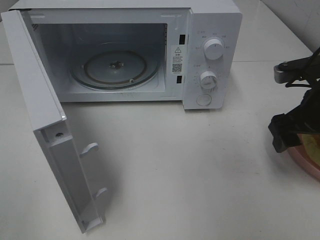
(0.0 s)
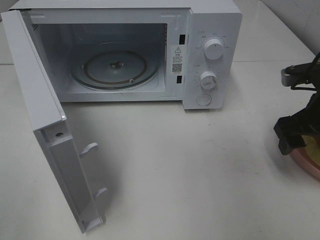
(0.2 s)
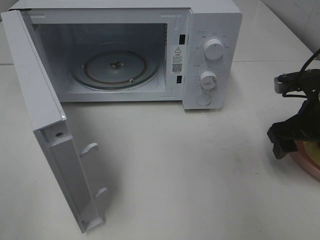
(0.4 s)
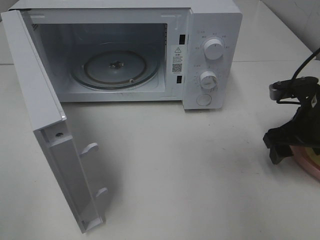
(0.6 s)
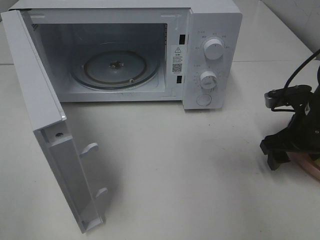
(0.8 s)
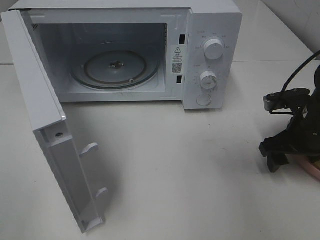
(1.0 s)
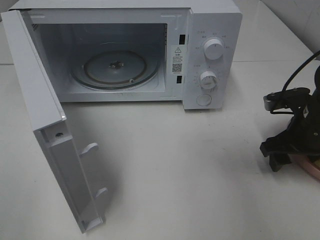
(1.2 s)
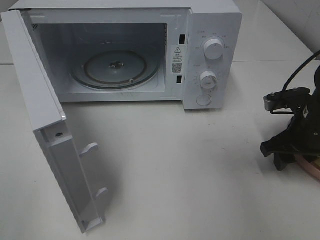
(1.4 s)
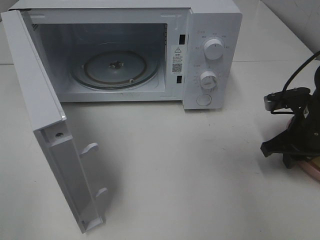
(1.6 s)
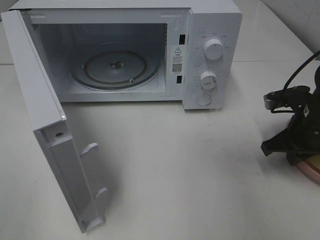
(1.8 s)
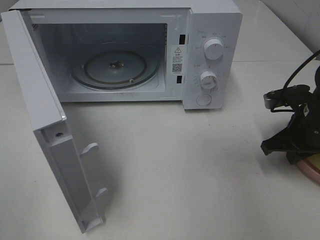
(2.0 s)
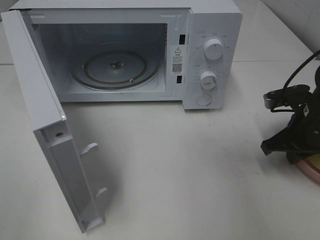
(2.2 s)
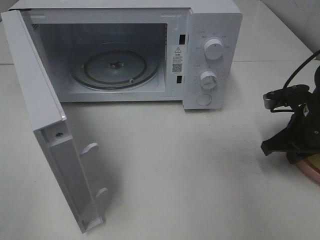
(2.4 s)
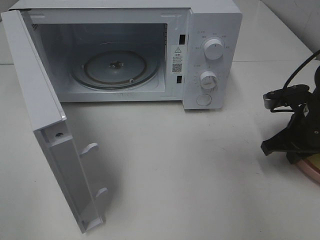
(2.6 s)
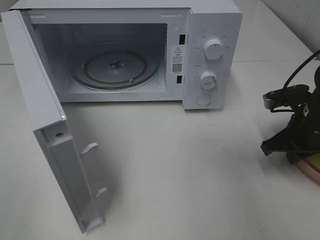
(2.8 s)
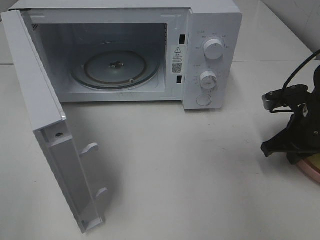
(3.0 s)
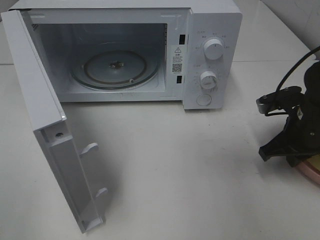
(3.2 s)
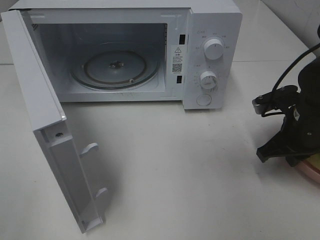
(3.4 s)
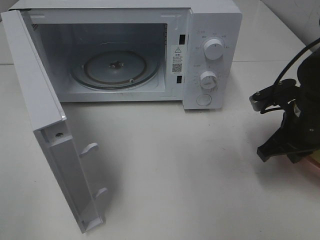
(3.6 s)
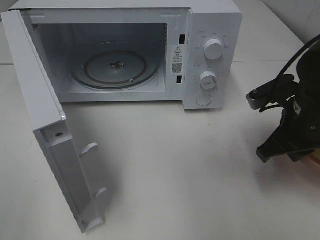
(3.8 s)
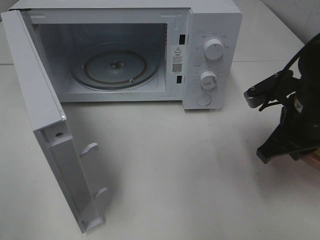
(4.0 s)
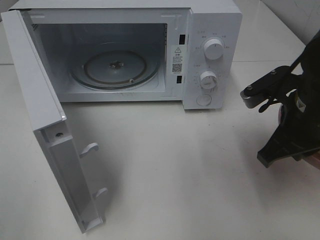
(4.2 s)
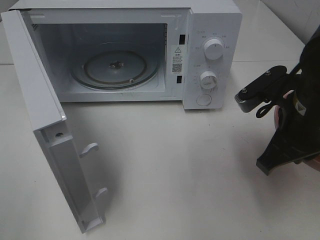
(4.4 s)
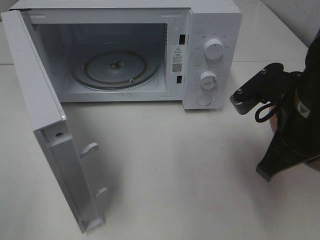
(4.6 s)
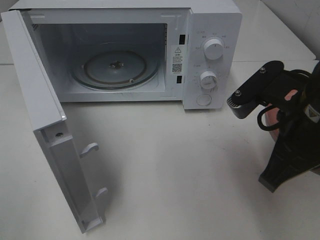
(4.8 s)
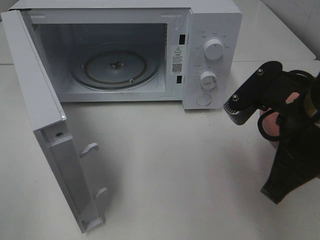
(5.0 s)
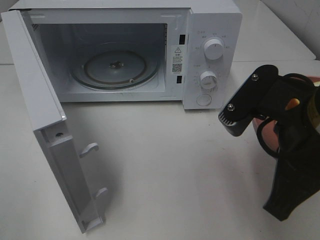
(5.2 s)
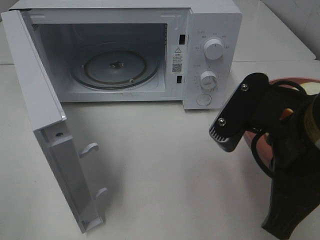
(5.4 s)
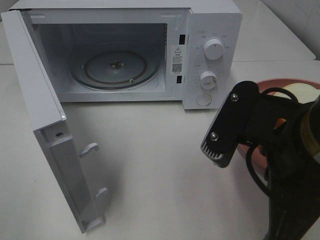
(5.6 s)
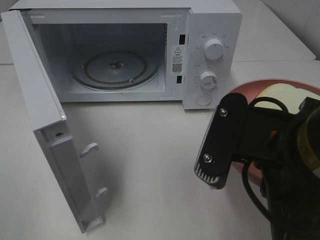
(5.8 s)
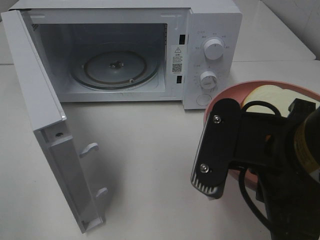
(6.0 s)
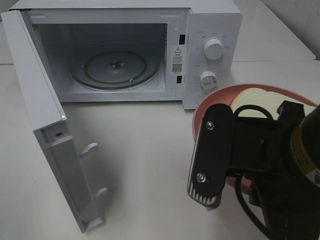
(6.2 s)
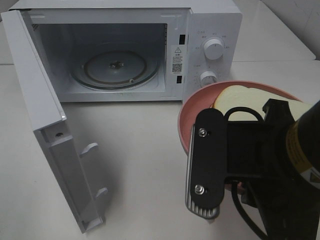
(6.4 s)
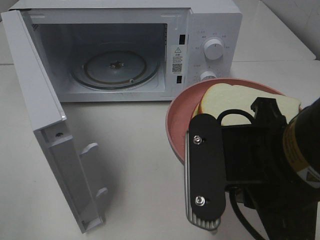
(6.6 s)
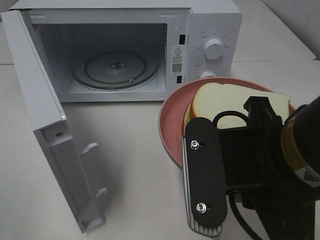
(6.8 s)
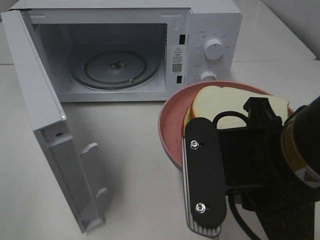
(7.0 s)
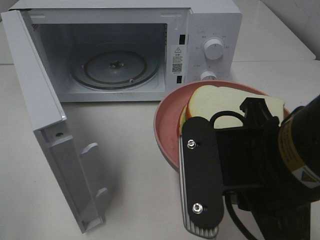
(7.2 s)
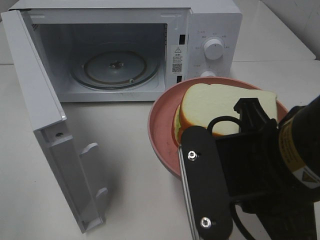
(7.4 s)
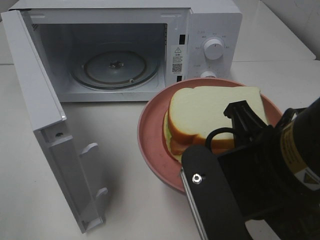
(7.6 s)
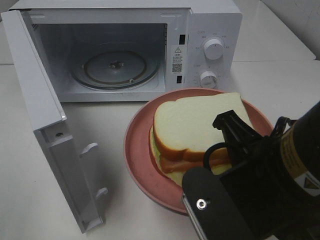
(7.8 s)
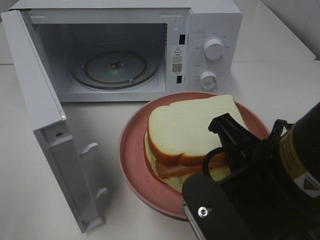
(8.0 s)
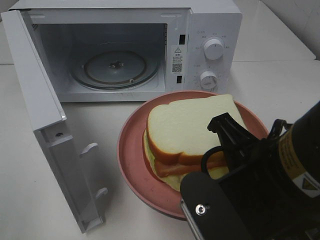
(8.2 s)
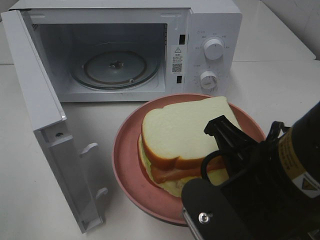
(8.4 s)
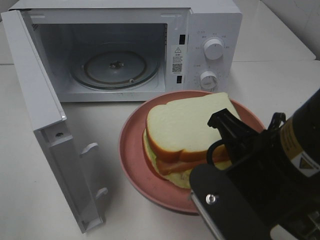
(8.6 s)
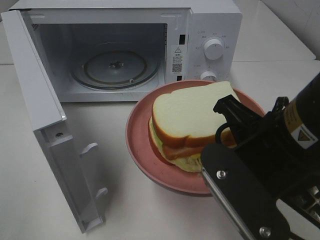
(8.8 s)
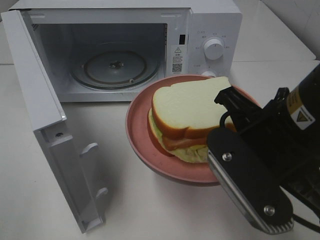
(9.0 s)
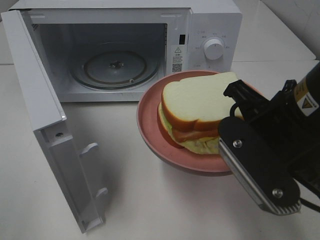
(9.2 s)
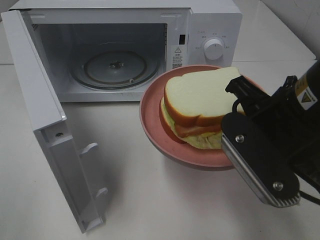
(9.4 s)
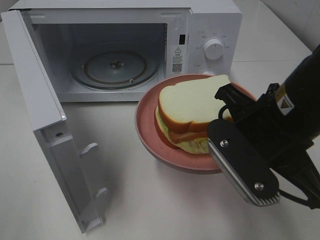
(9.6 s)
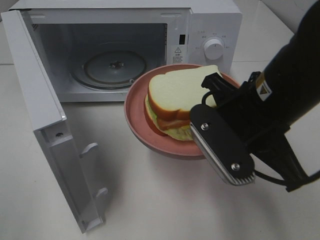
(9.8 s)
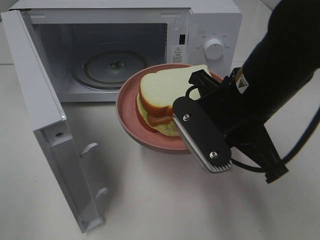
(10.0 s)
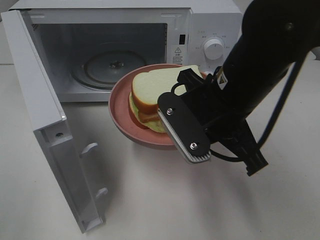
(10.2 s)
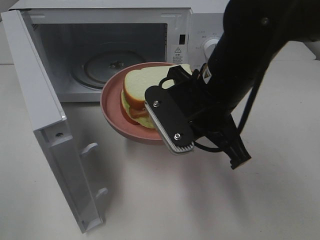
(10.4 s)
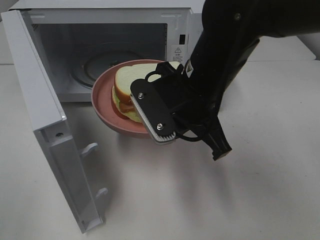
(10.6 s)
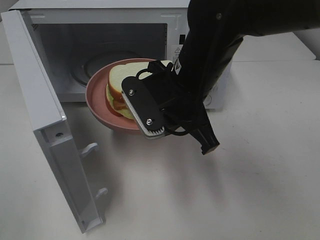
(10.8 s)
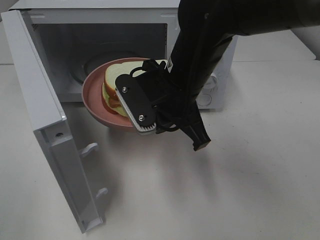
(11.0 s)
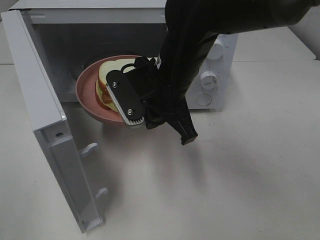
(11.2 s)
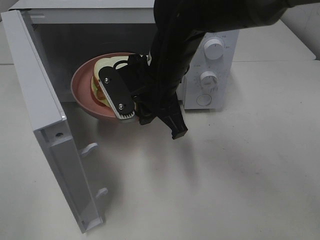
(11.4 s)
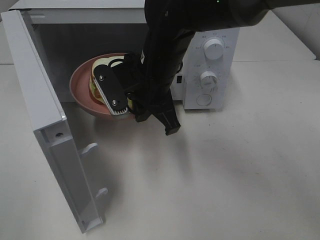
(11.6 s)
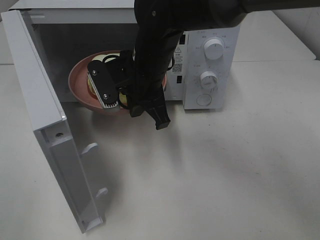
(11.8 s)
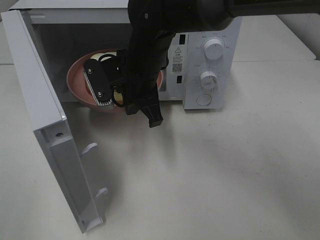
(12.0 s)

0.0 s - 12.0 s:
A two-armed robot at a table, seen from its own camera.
Task of the whole recording: Heat Sandwich.
Step, 0.0 s - 2.6 s: Right hand: grab the plate with the sandwich.
0.0 s - 1.6 s: The right gripper travels downward by about 5 cm, and closes its fingers.
1.6 s - 3.0 s: Neither gripper changes place.
3.0 s - 4.4 s: The right gripper moves upward, to the left and backward, about 15 cm.
4.4 s - 6.0 s: The right gripper moves backward and to the left, some 15 cm.
7.6 s - 9.0 s: The grippers stay close to where they were, moving slightly.
9.0 s - 10.4 s: The right gripper travels forward and to the left by about 10 cm.
10.4 s - 12.0 s: The right gripper goes approximately 15 cm forward and to the left.

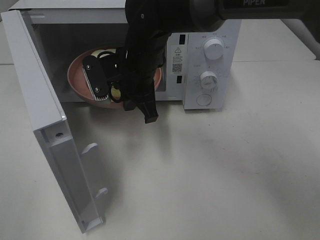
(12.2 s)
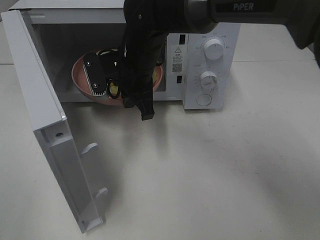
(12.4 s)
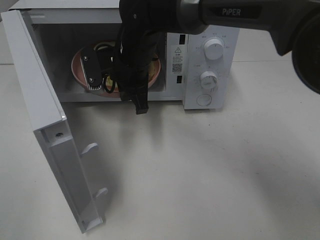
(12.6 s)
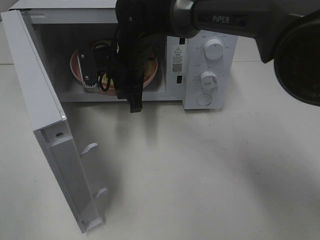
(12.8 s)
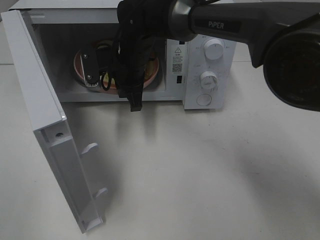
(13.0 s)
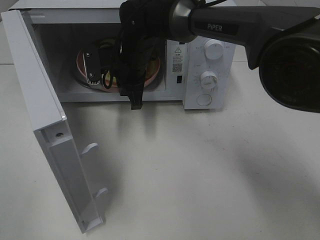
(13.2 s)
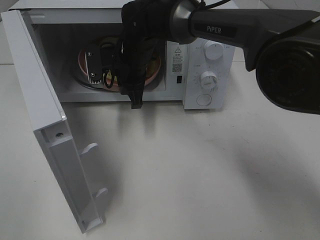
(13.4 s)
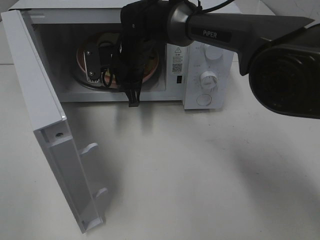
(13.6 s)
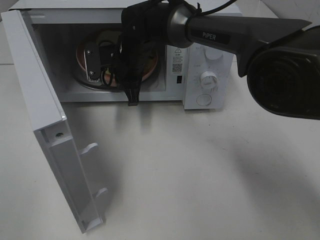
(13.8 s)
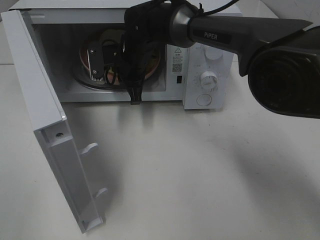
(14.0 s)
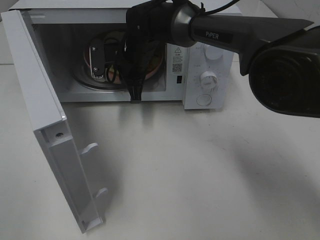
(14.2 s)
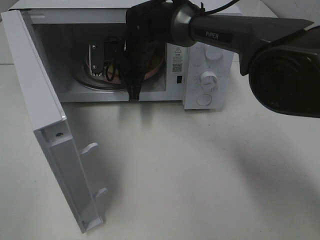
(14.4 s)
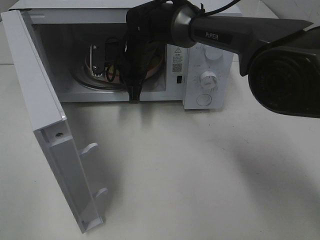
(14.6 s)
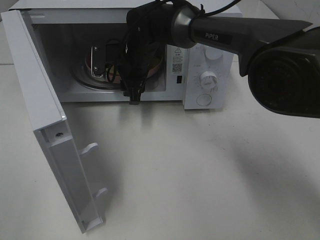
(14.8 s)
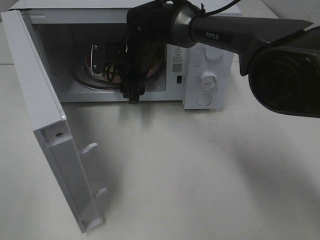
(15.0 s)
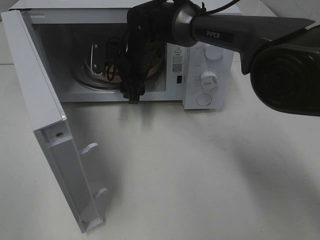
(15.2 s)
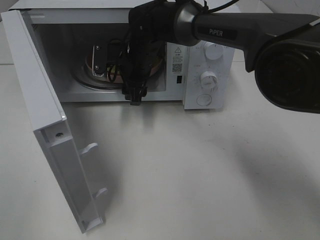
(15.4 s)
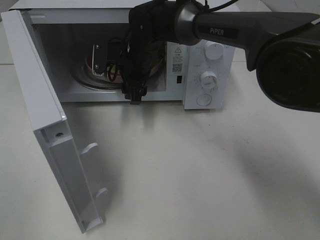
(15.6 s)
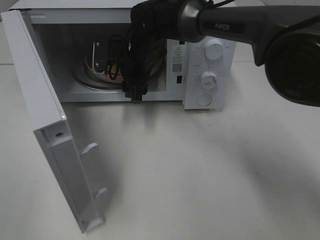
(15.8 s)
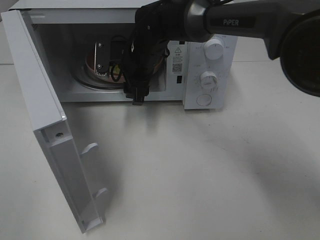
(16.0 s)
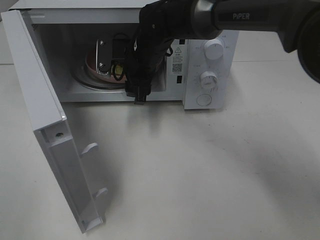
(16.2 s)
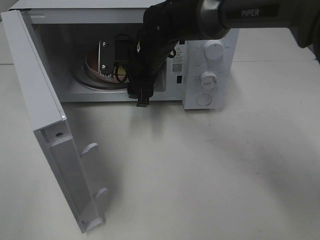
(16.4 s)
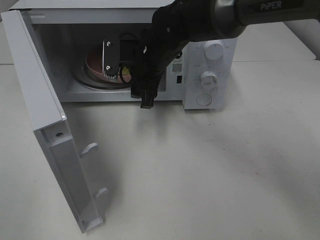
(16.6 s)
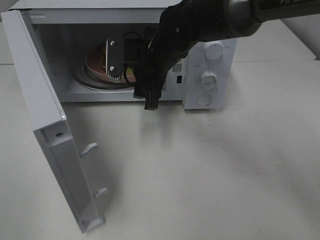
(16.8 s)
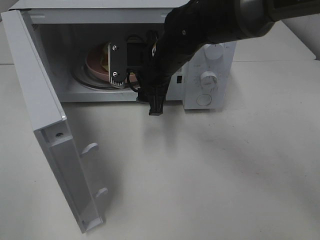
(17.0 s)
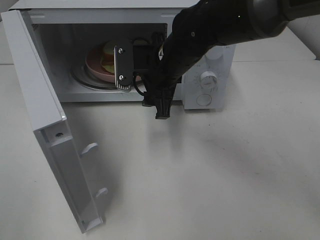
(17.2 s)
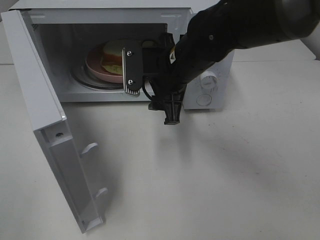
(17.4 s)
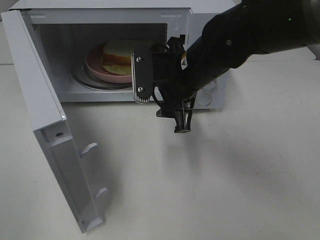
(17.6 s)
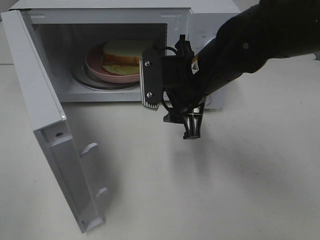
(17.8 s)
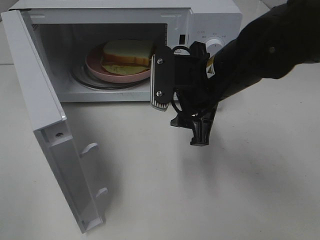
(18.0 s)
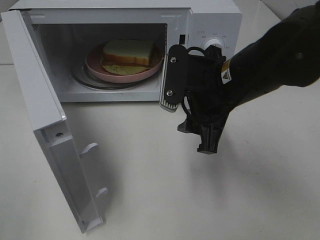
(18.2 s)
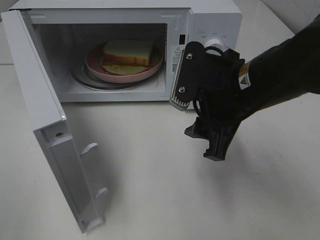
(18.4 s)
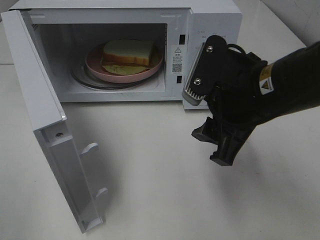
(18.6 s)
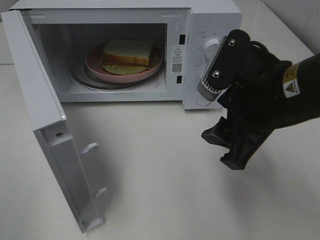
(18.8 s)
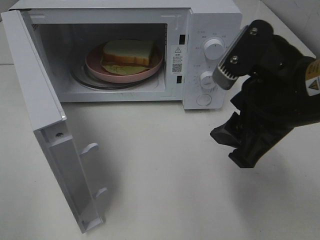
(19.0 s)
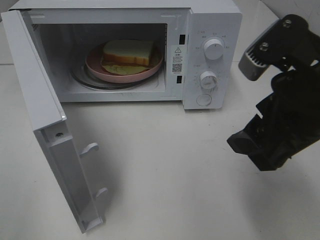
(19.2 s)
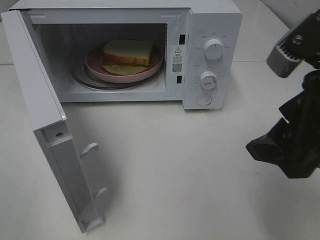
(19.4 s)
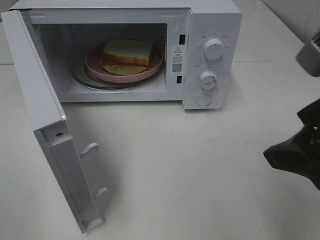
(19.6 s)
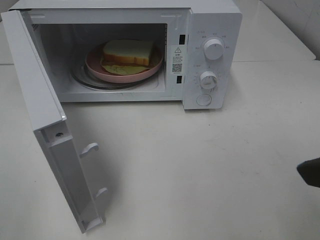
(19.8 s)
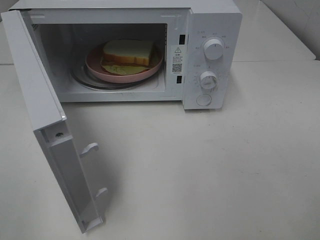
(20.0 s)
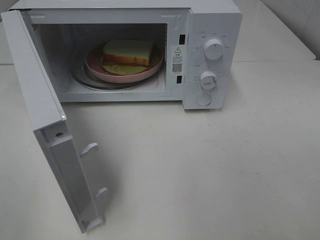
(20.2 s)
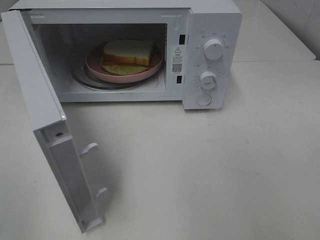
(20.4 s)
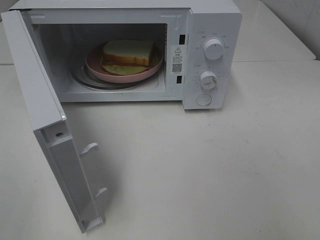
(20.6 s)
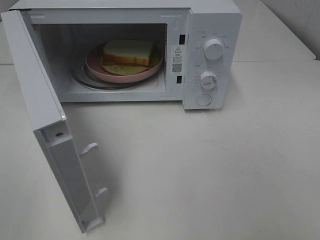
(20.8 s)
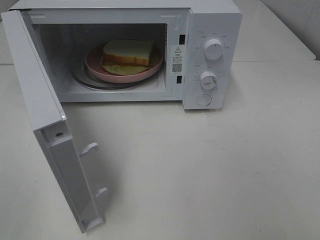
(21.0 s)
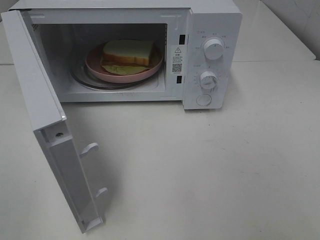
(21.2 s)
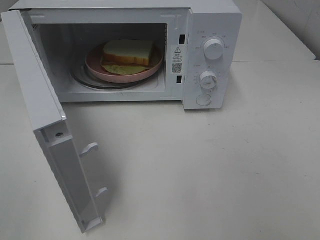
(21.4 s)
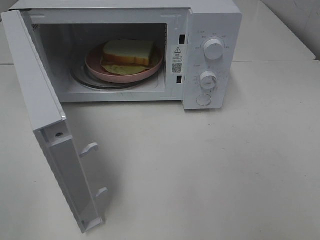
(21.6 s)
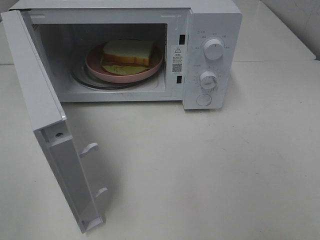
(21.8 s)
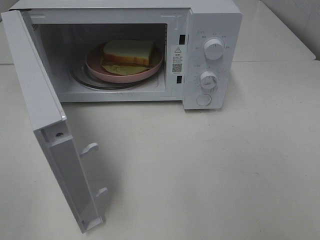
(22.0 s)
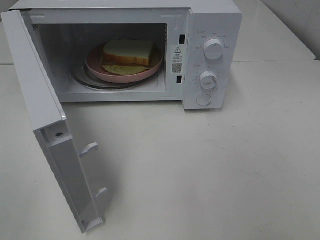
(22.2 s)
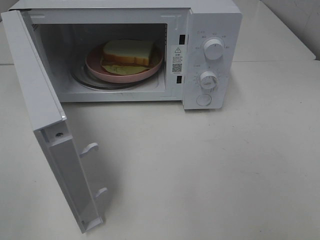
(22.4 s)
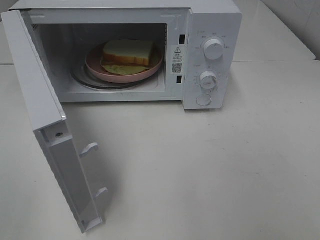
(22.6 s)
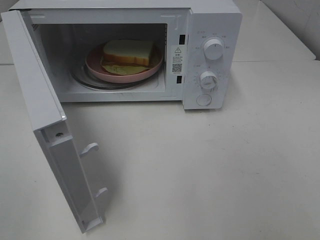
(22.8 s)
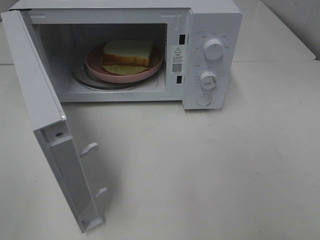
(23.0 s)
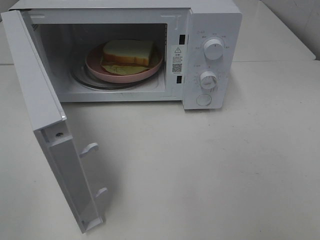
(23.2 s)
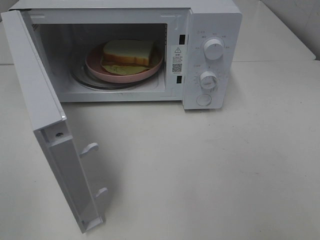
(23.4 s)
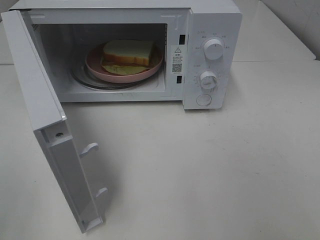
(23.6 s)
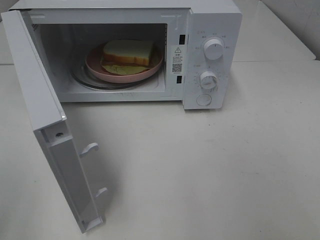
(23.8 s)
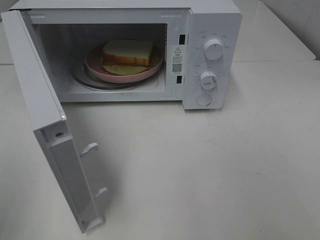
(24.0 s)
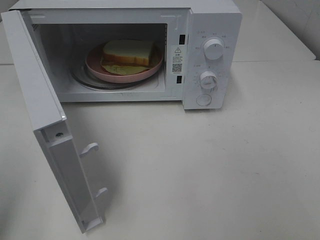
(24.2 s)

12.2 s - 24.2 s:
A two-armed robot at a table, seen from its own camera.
Task of the whole recording: Heat Sandwich.
Step, 12.2 s - 15.8 s: Right hand: place the plate in the microwave.
12.2 s - 13.8 s: The right gripper travels forward by roughly 5 cm.
13.8 s - 15.2 s: The right gripper opens up.
15.2 s - 16.6 s: The right gripper moves backward, about 5 cm.
16.6 s - 18.2 s: The right gripper moves backward and to the right, about 15 cm.
18.2 s - 19.8 s: The right gripper moves backward, to the right and upward, about 20 cm.
19.8 s - 21.2 s: The right gripper moves backward and to the right, roughly 15 cm.
21.2 s - 22.6 s: Both grippers stay put.
